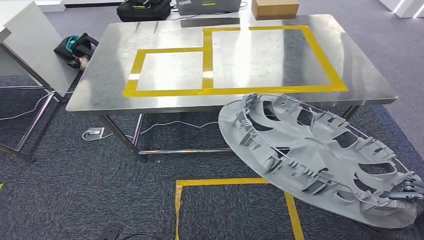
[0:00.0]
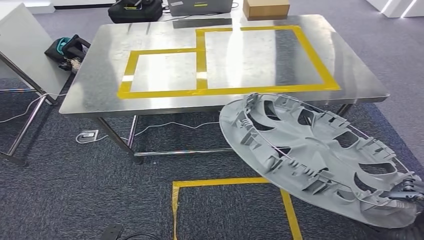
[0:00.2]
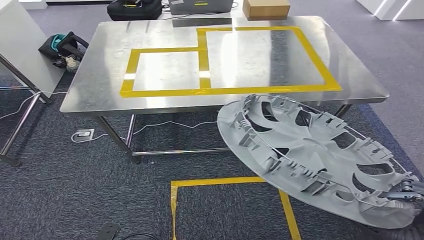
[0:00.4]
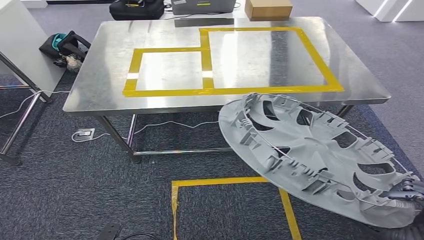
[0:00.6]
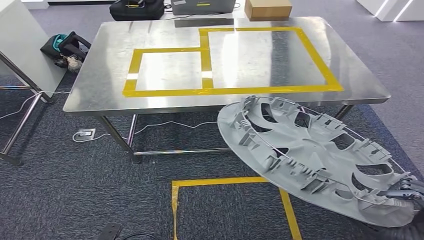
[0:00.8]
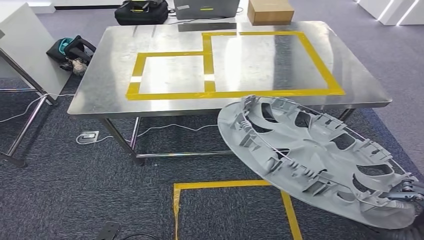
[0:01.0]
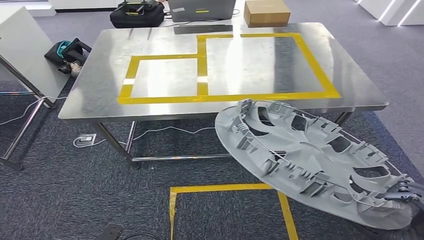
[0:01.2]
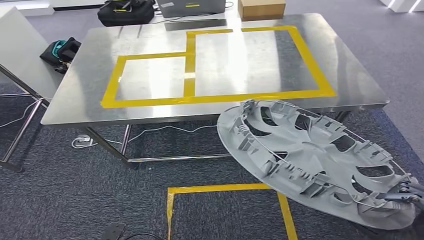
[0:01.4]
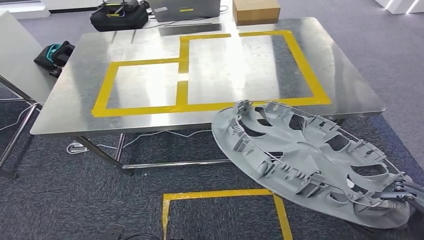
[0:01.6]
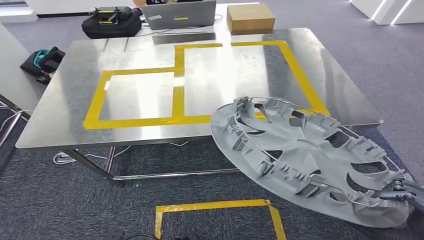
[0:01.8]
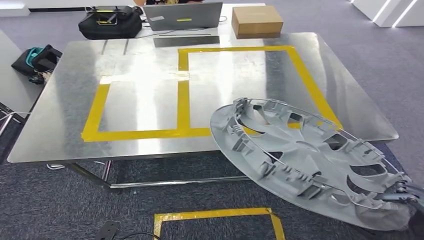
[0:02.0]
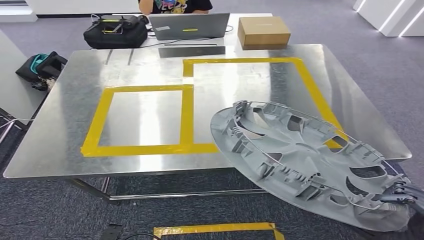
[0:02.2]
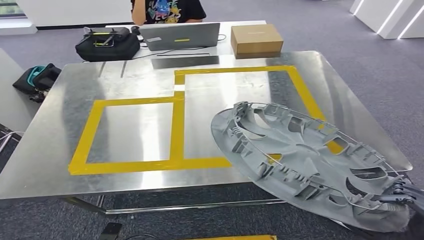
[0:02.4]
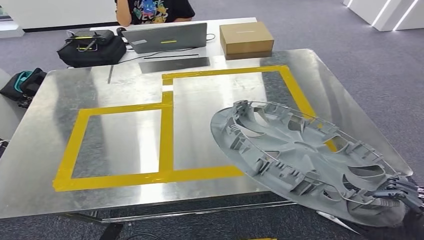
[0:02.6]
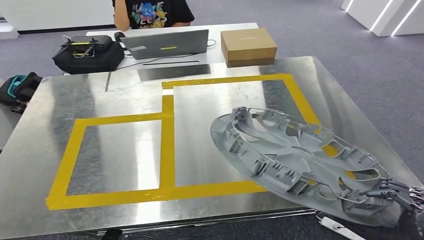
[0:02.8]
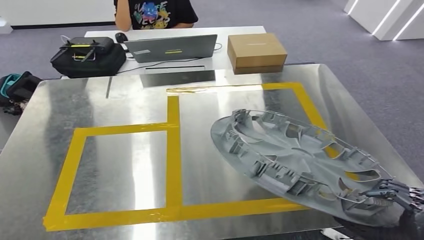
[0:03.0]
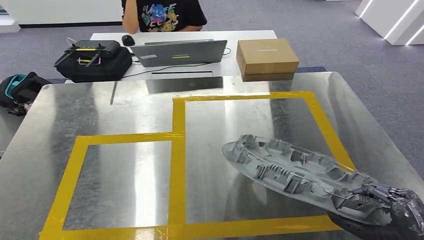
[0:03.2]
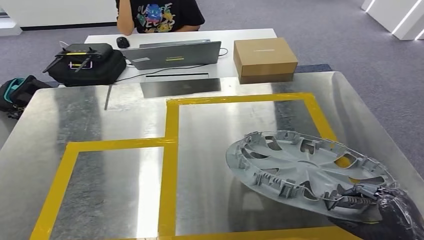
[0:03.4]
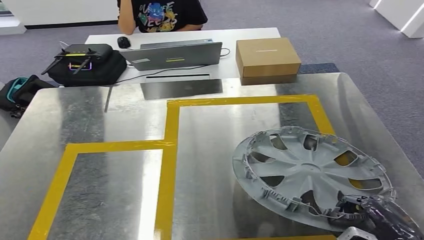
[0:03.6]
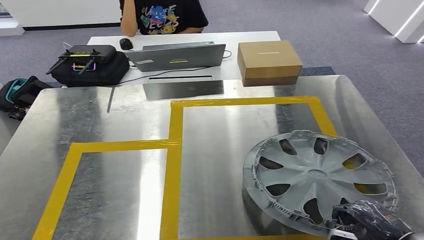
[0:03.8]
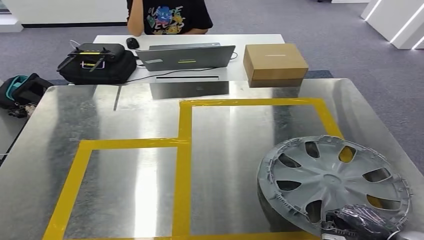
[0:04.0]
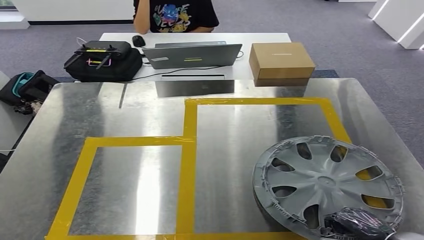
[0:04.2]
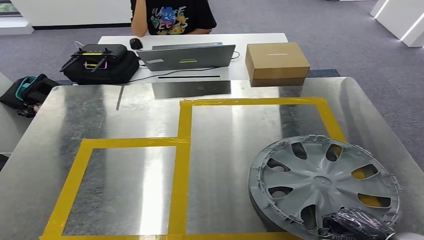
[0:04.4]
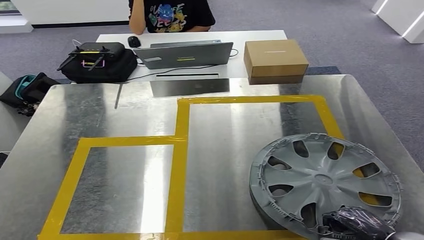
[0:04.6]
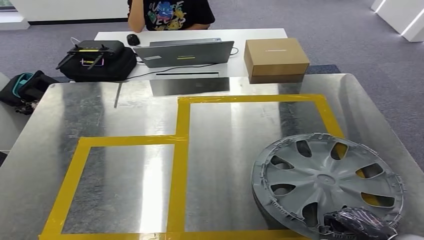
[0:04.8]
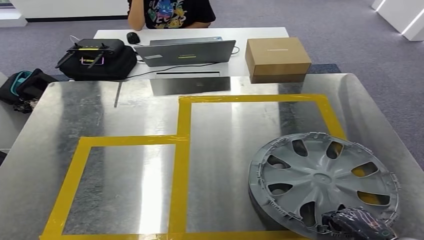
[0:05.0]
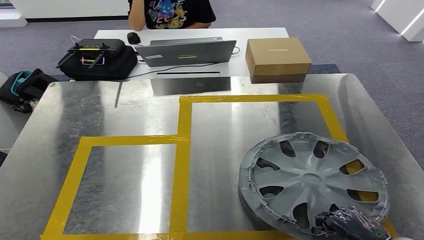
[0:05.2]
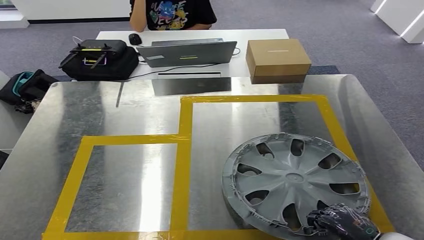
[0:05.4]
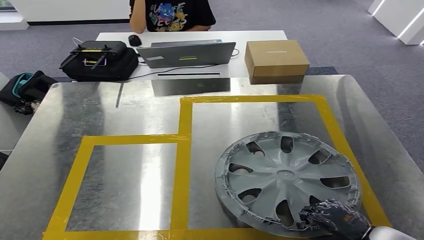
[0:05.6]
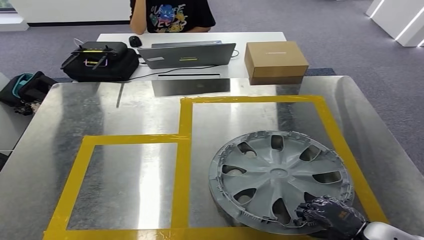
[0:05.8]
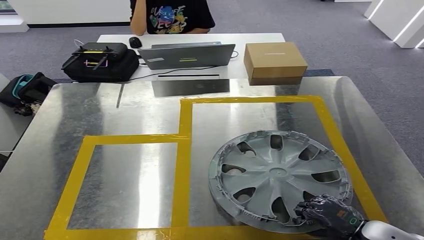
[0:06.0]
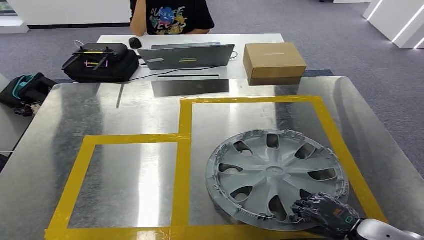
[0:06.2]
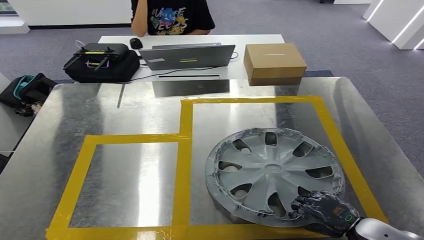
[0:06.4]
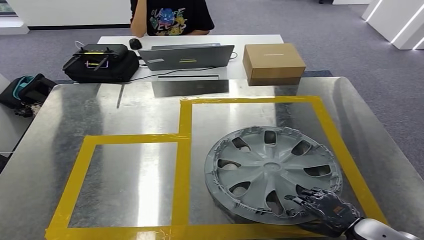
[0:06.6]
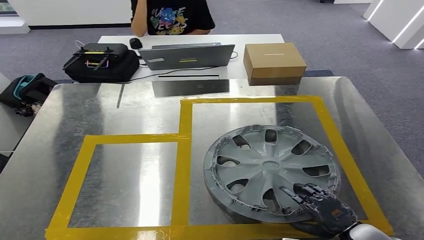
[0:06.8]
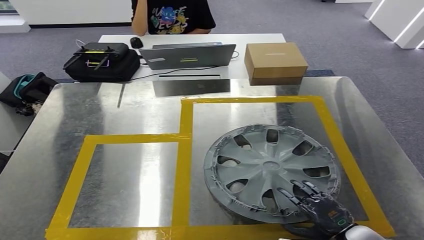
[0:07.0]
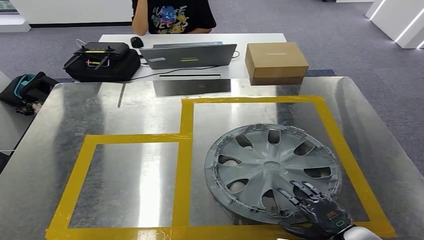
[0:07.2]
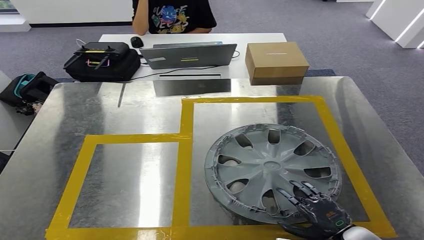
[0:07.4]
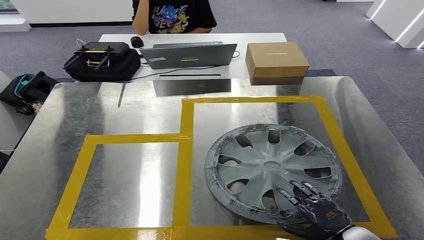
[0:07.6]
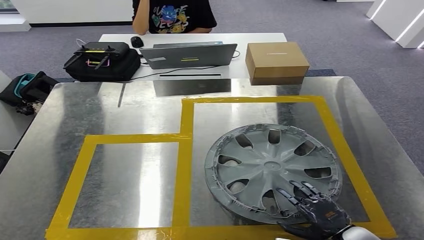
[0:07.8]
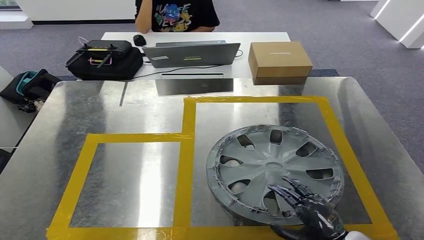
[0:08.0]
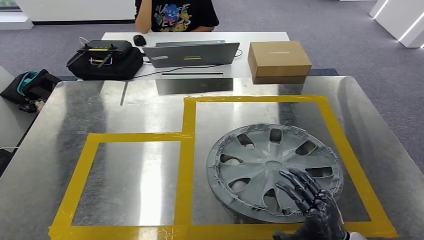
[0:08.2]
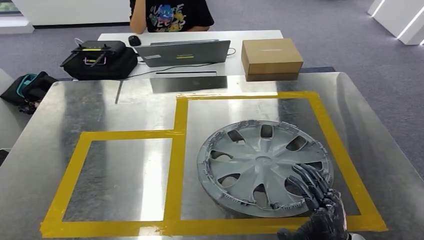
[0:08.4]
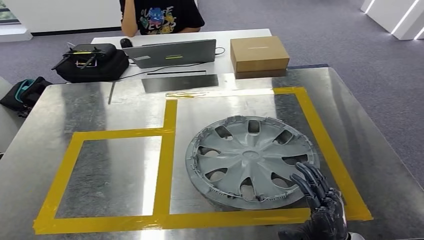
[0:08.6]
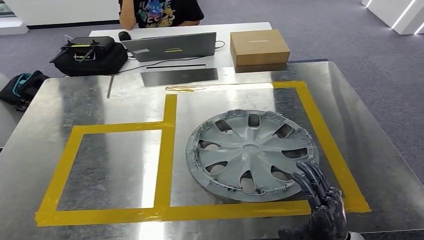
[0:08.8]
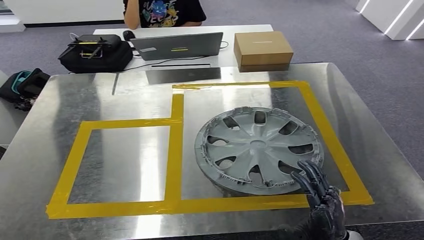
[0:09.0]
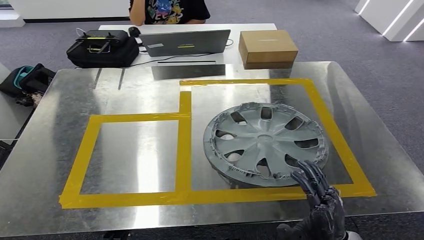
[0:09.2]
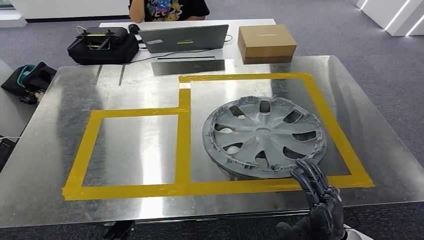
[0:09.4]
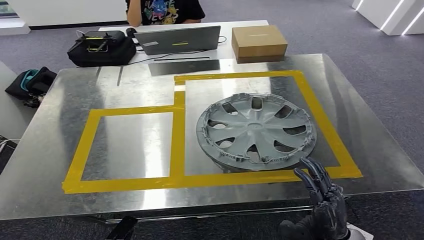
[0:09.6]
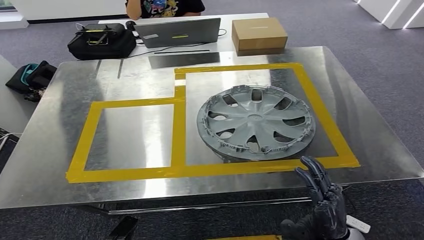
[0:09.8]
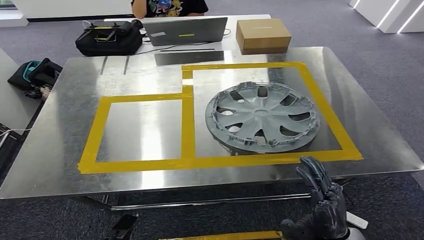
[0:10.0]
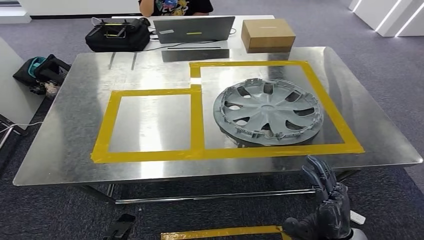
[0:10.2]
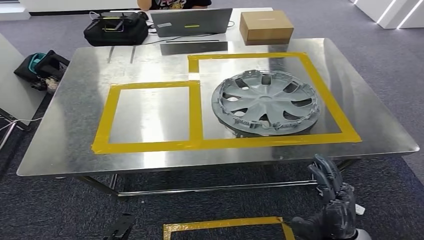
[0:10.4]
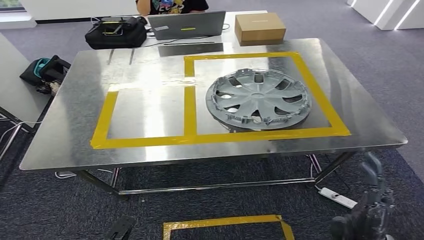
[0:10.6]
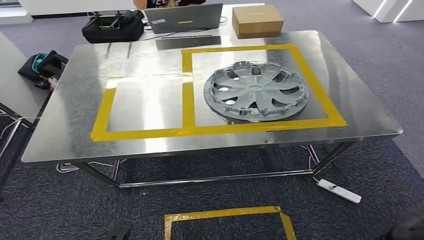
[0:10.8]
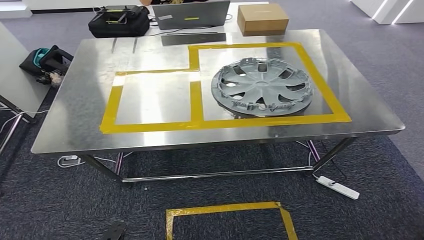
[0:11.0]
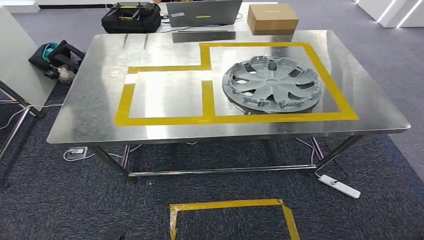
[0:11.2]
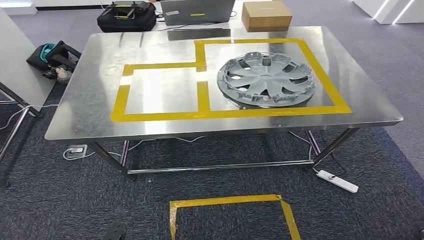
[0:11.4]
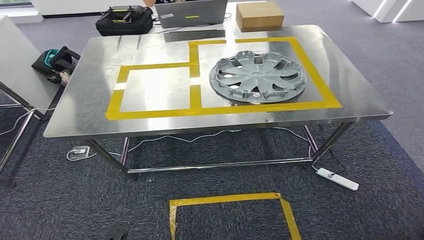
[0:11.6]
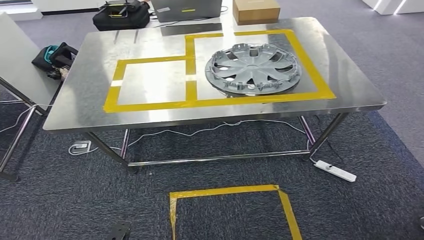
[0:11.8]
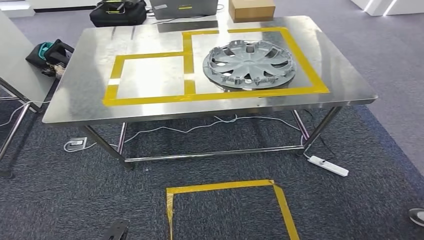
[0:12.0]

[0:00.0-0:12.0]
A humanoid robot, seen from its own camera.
Step, 0:00.0 to 0:09.8: Insert the small component into the corresponding slot on the workbench.
0:06.0 to 0:07.6: There are only small adjustments of the hands.

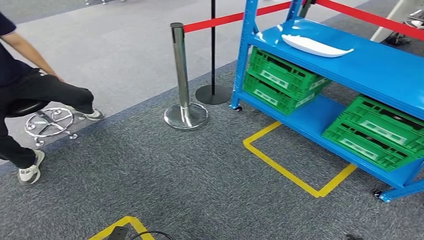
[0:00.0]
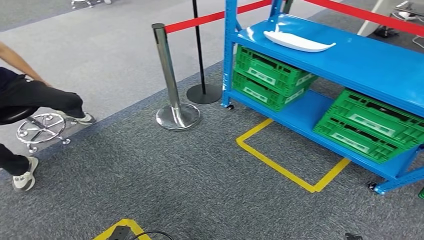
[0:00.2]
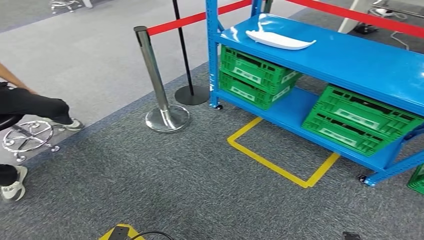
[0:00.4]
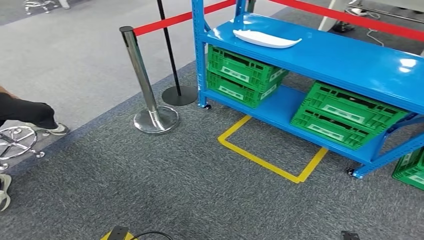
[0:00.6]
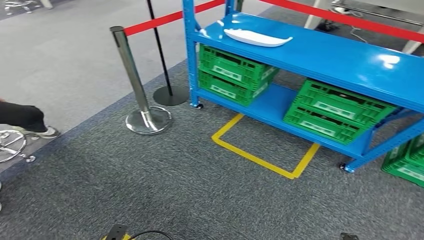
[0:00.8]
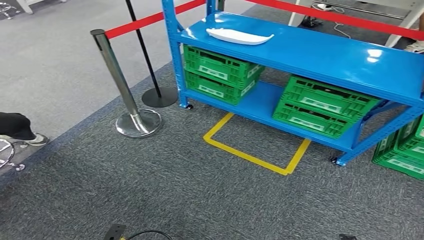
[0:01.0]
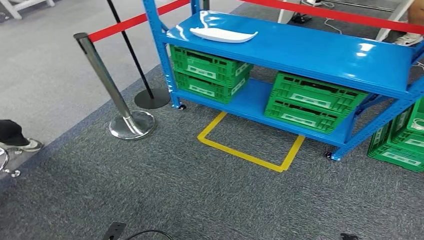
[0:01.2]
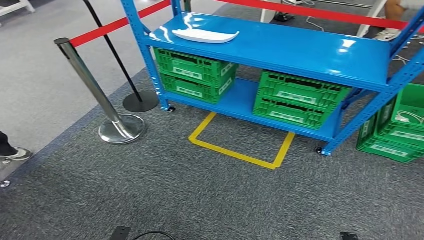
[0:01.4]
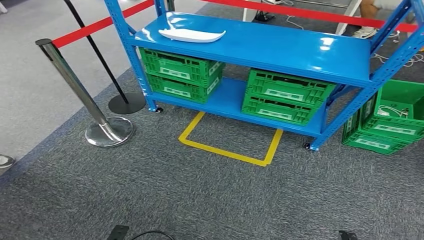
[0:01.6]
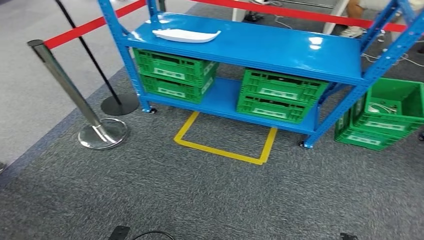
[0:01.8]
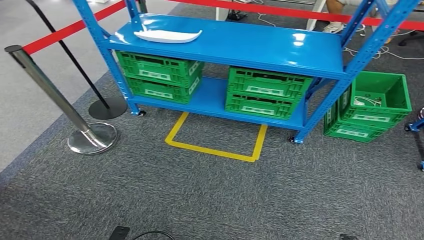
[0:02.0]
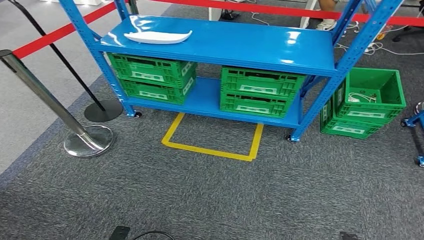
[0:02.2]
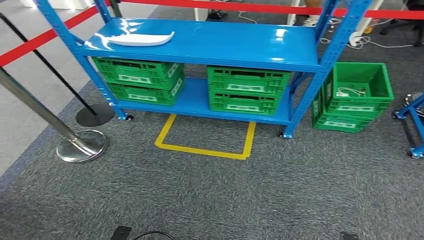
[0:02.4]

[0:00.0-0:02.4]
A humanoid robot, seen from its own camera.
Step, 0:00.0 to 0:02.4: Move to the initial position of the workbench.
